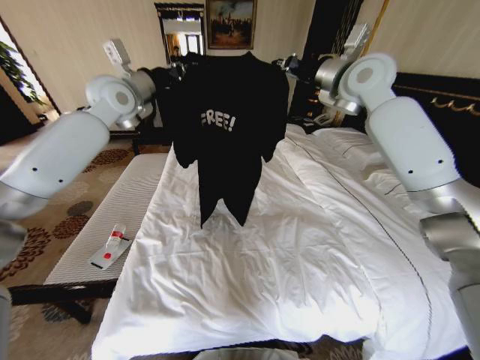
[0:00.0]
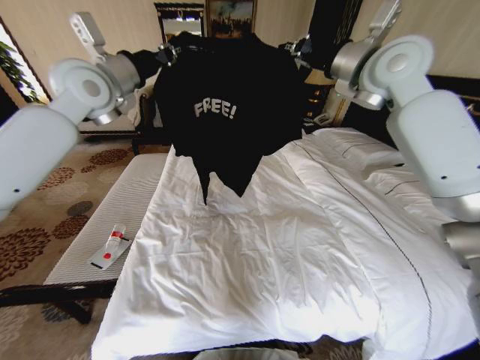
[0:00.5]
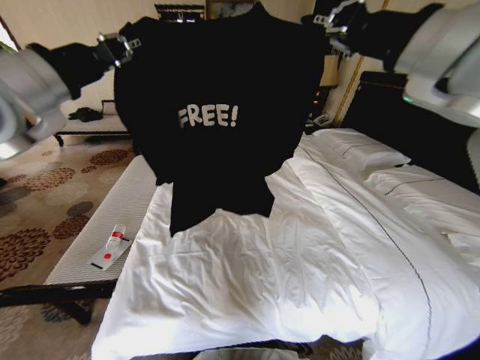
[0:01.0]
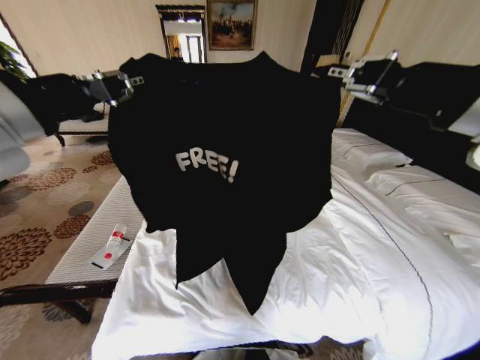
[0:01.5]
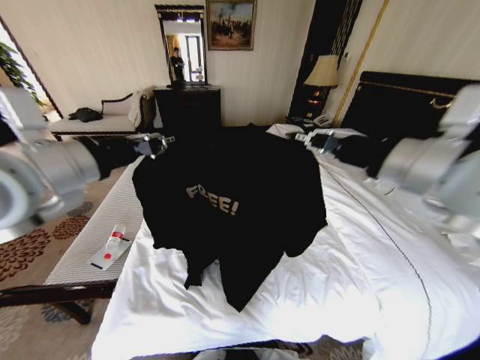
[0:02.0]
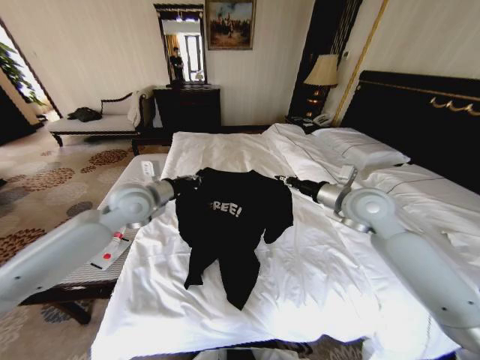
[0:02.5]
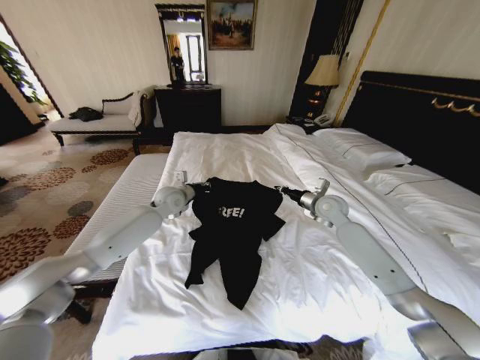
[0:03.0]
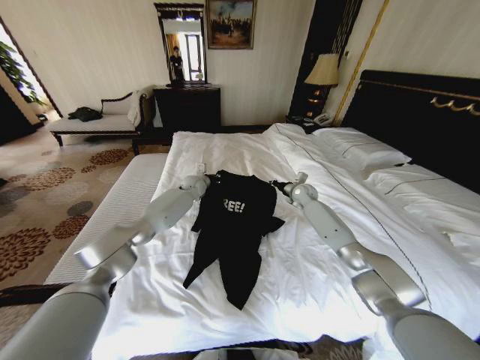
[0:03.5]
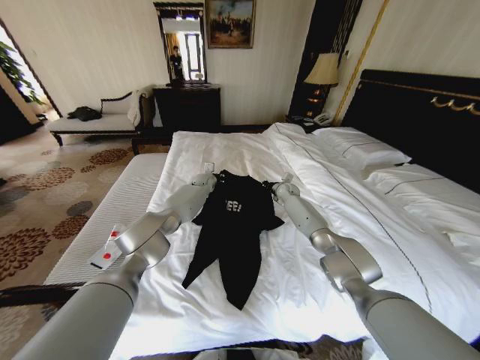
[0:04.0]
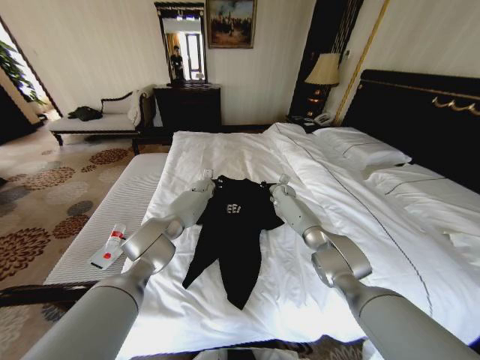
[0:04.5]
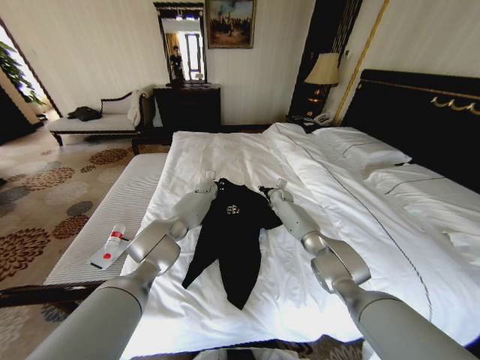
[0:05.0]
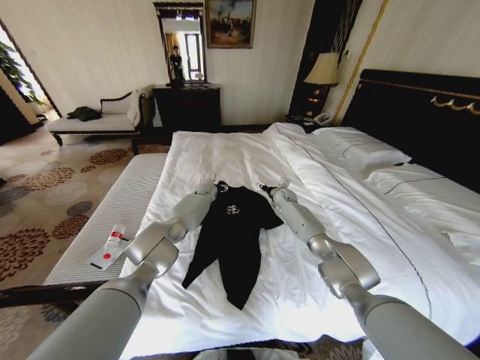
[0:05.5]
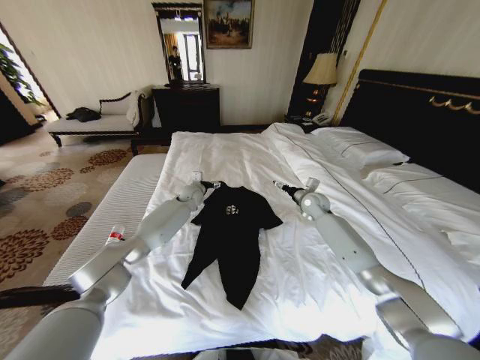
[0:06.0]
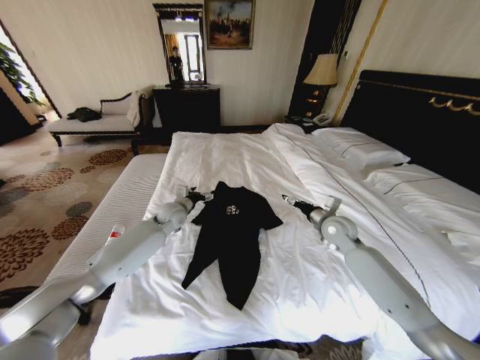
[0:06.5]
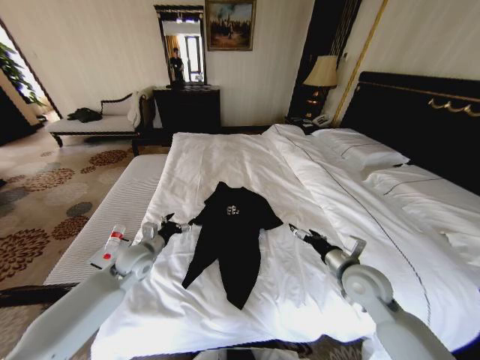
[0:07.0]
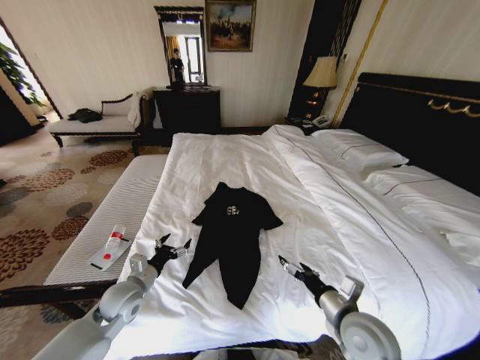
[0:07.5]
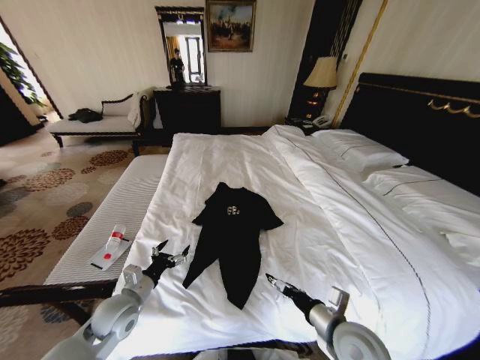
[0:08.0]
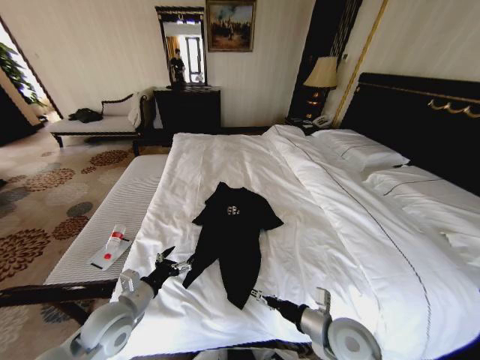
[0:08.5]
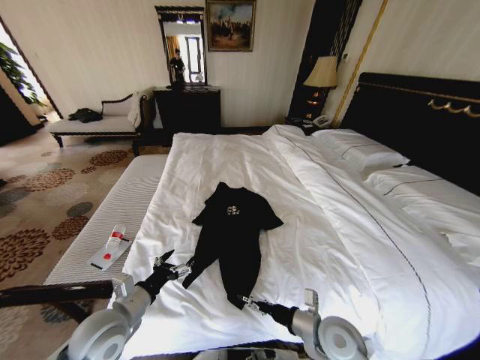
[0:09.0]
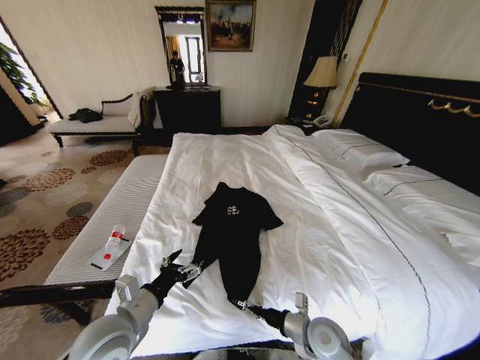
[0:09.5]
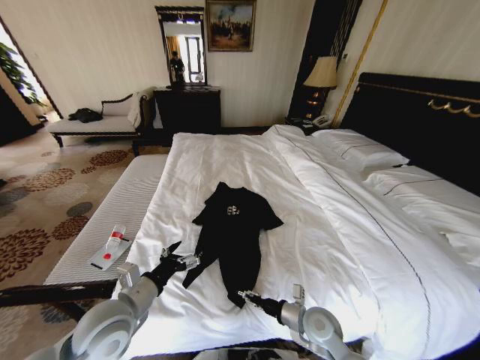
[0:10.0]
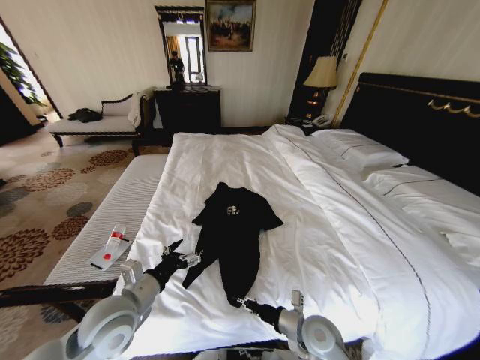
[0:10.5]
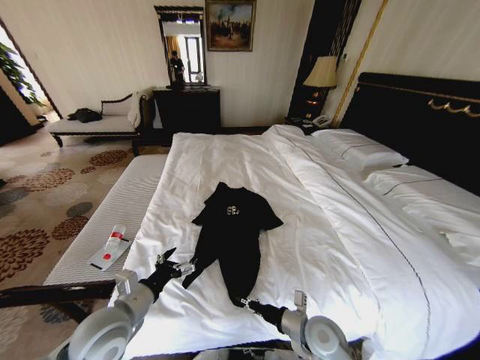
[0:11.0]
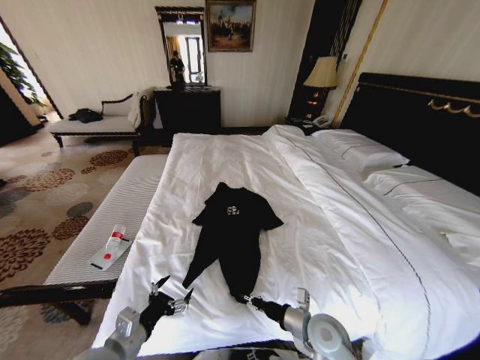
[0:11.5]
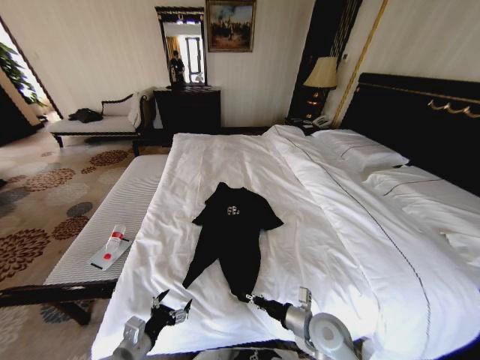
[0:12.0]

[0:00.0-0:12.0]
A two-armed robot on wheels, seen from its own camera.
Task of the whole recording: Fold the clothes on the bed.
0:00.0 to 0:02.0: The two grippers go about 30 cm backward.
0:02.0 to 0:04.0: Both grippers travel together forward and downward, approximately 50 cm.
0:04.0 to 0:06.0: The left gripper heads backward, covering approximately 10 cm, and opens up; the right gripper is displaced backward and to the right by approximately 10 cm, and opens.
0:06.0 to 0:08.0: Both grippers move backward, some 40 cm.
0:08.0 to 0:10.0: The left gripper shifts roughly 10 cm upward, while the right gripper goes roughly 10 cm downward and forward.
0:10.0 to 0:12.0: The right gripper closes. Meanwhile the left gripper shifts approximately 15 cm downward and backward.

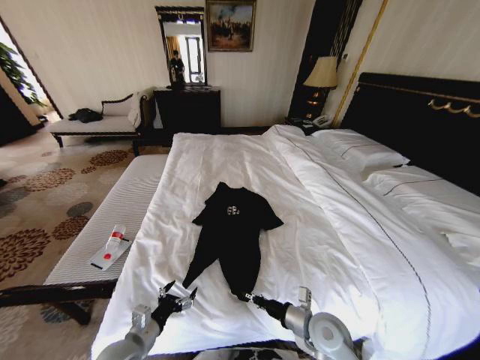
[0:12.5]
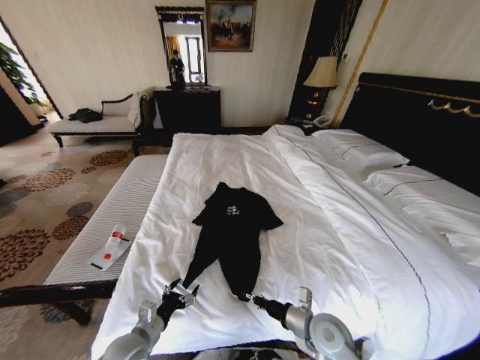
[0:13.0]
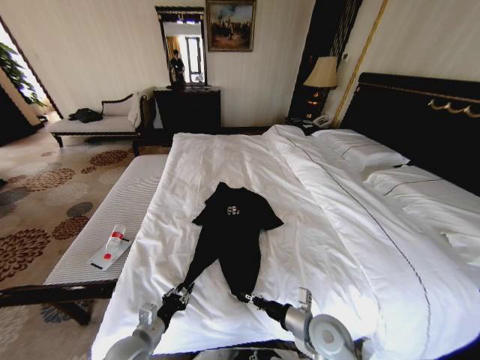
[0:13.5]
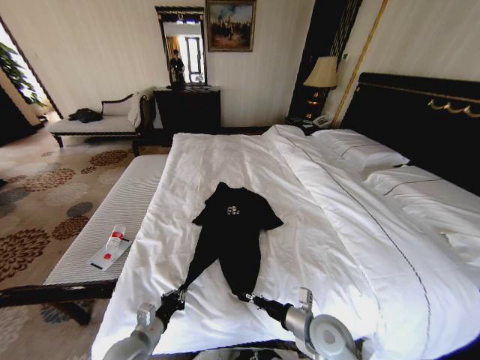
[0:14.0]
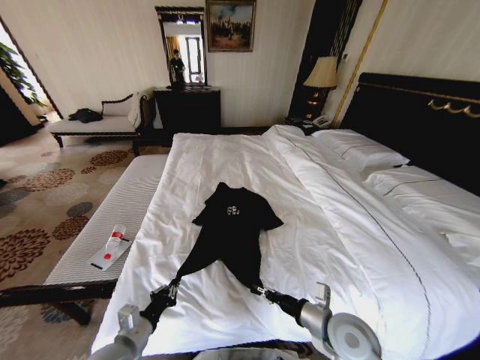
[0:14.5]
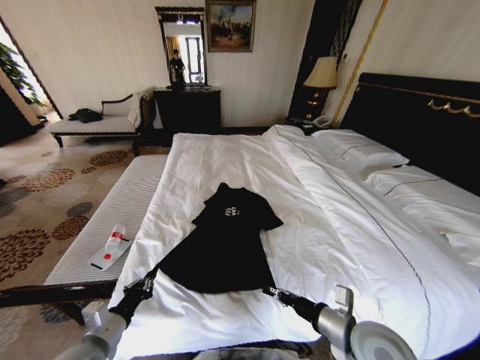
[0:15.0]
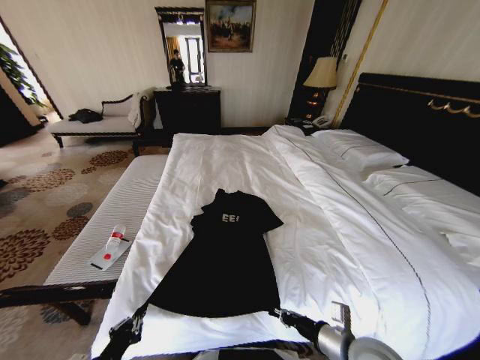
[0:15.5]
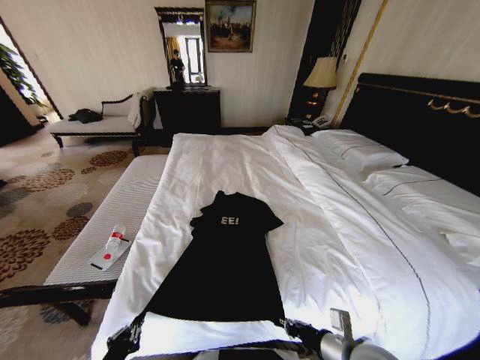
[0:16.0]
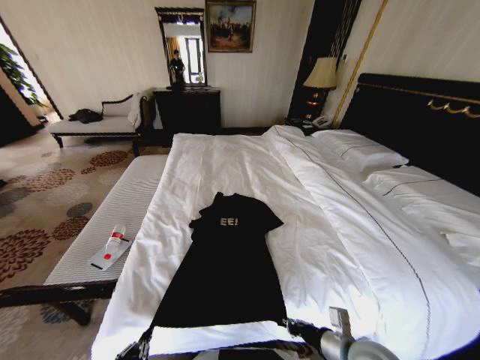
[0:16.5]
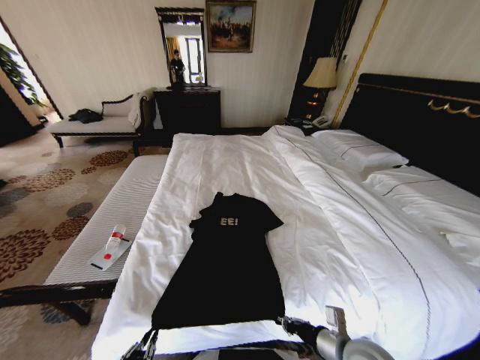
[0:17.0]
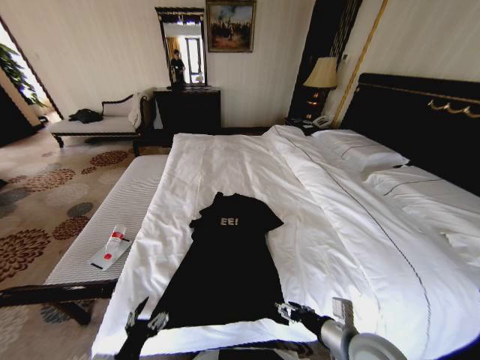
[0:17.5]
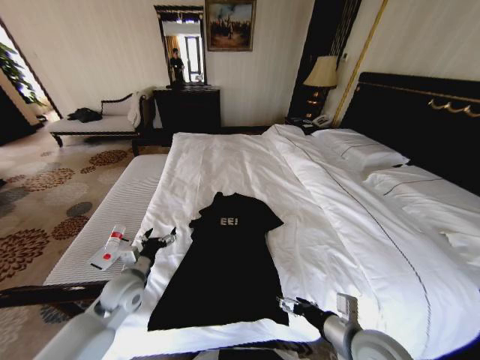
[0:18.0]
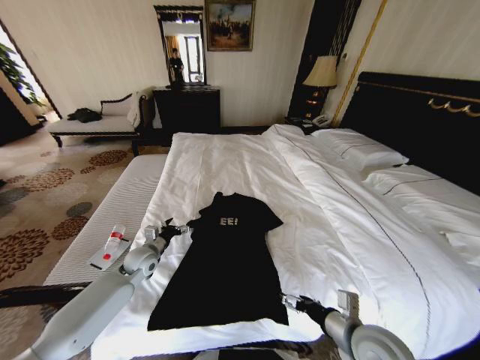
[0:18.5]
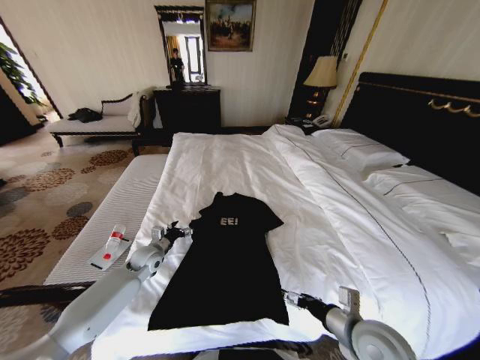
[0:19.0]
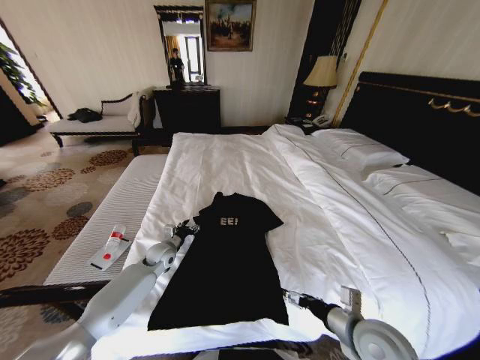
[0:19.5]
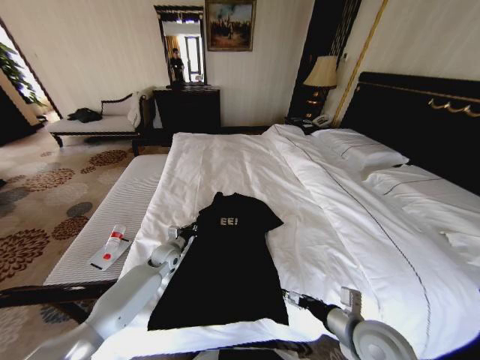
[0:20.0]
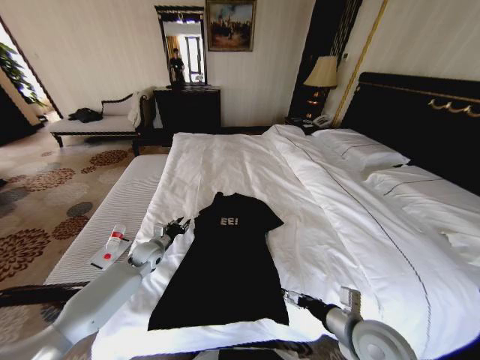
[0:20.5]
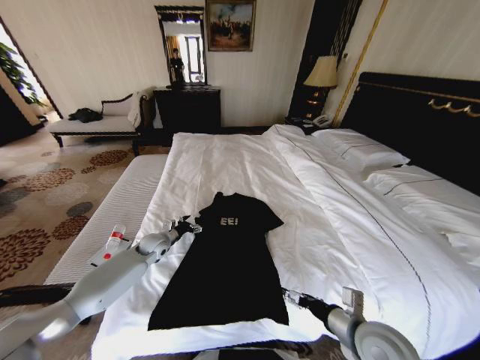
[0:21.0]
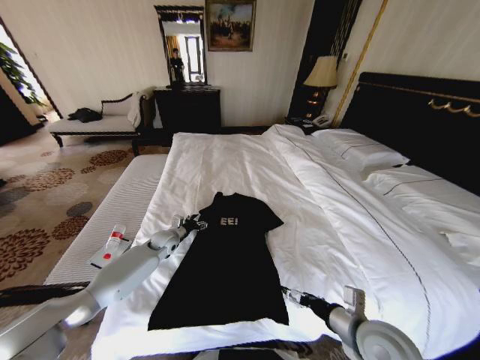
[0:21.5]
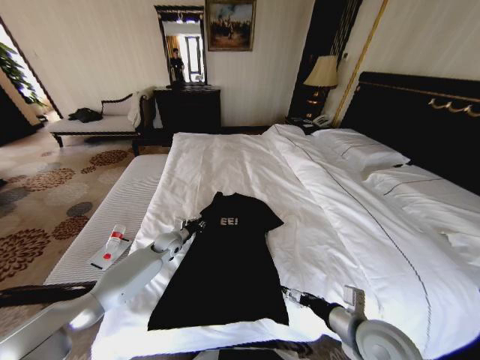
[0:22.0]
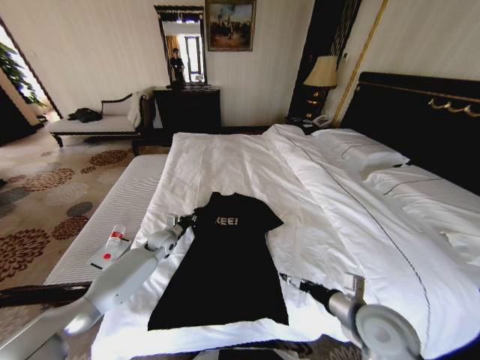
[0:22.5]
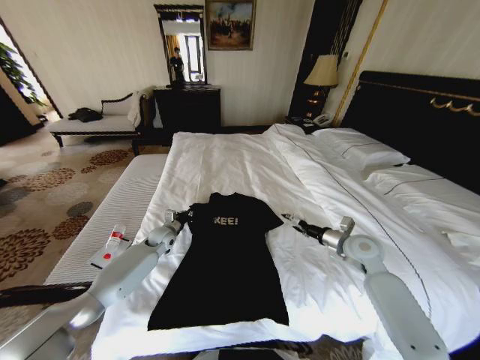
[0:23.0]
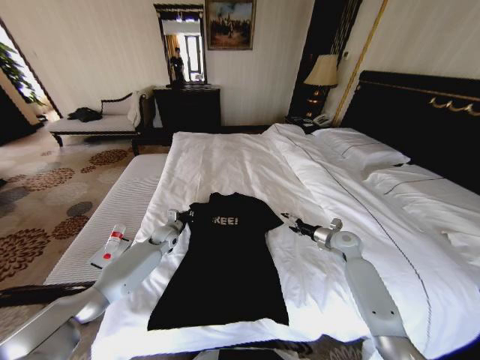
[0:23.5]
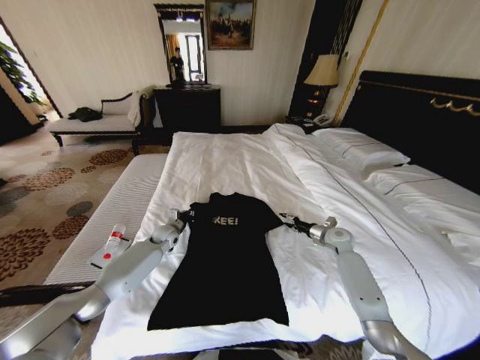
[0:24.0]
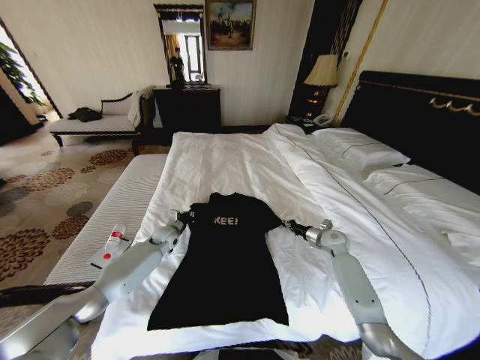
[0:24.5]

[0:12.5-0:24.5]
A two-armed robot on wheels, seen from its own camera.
Task of the whole recording: Fold the clothes on the bed.
0:12.5 to 0:14.5: The right gripper goes roughly 5 cm upward. Meanwhile the left gripper closes.
0:14.5 to 0:16.5: The left gripper heads backward, covering about 15 cm, while the right gripper shifts by approximately 5 cm.
0:16.5 to 0:18.5: The left gripper travels forward by about 40 cm, and opens up. The right gripper opens up.
0:18.5 to 0:20.5: The left gripper closes up.
0:20.5 to 0:22.5: The left gripper goes approximately 5 cm forward, and closes its fingers.
0:22.5 to 0:24.5: The right gripper moves forward, some 25 cm, and closes up.

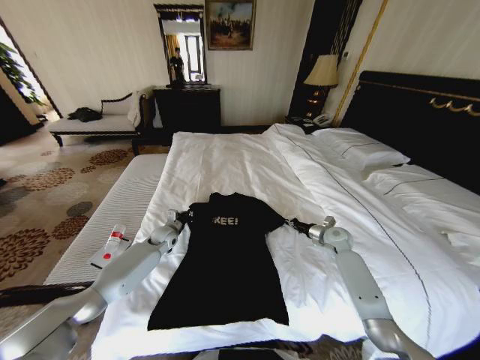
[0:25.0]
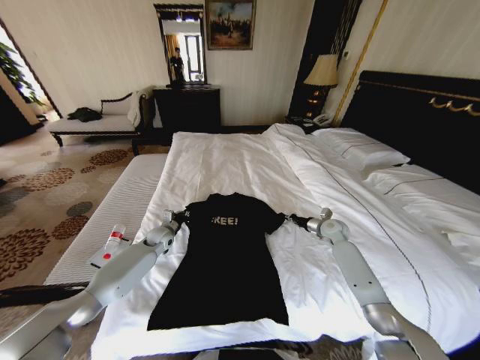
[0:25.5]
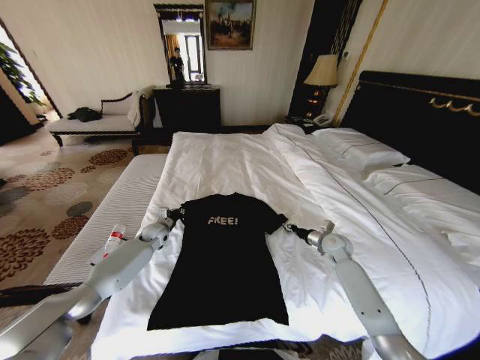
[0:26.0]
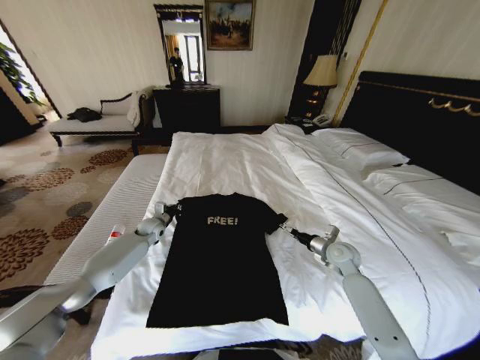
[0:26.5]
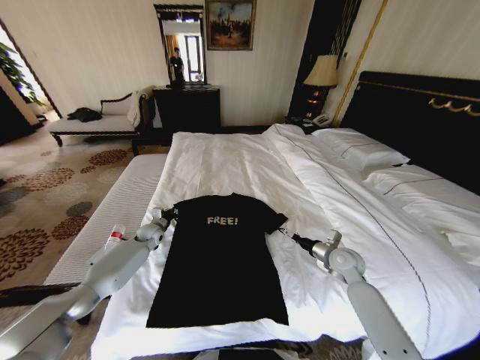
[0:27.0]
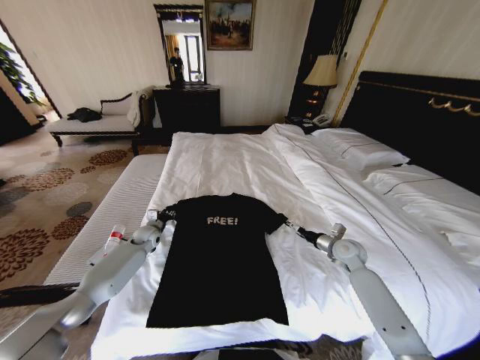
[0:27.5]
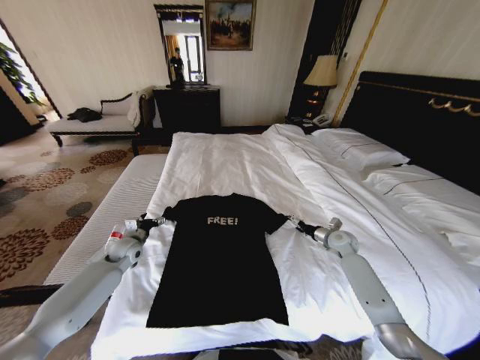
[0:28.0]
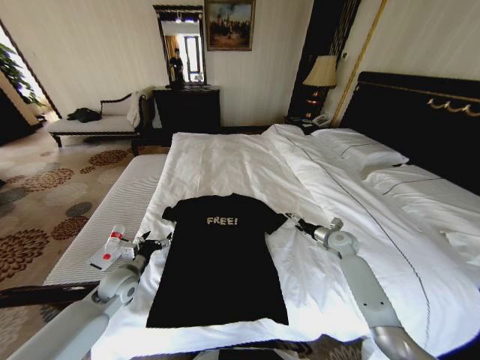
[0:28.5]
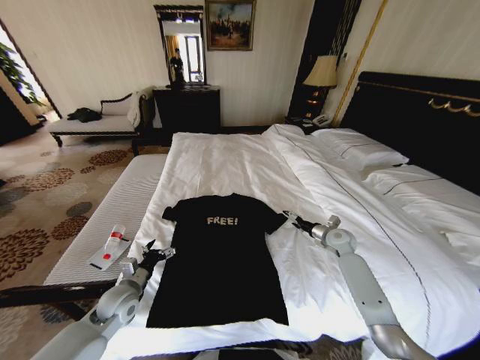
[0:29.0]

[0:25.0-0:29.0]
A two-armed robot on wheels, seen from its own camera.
Task of the whole recording: Fold the clothes on the bed.
0:25.0 to 0:27.0: The right gripper heads backward, covering approximately 10 cm, and opens its fingers. The left gripper is displaced to the left by roughly 5 cm.
0:27.0 to 0:29.0: The left gripper goes about 25 cm backward, and opens its fingers. Meanwhile the right gripper moves forward, roughly 10 cm.
